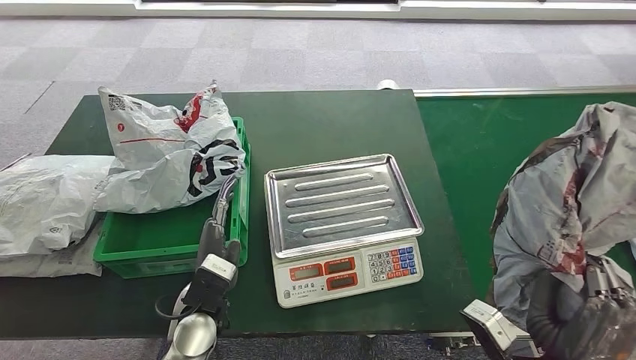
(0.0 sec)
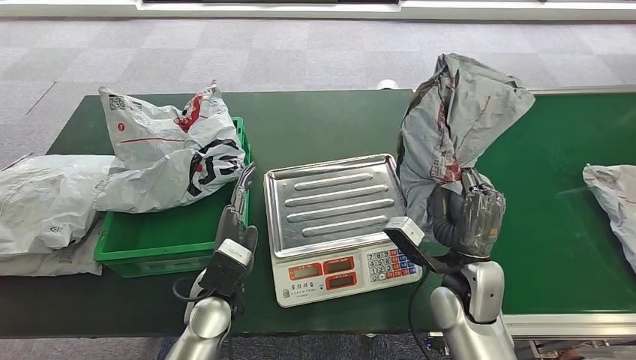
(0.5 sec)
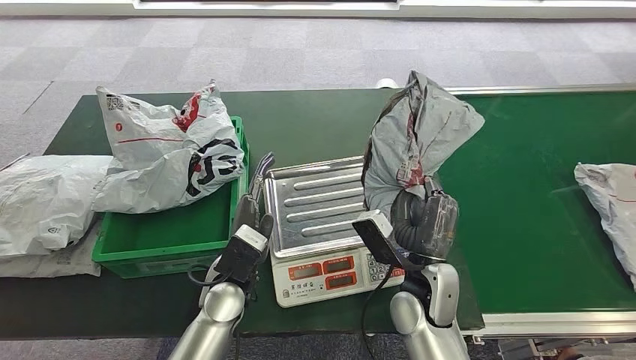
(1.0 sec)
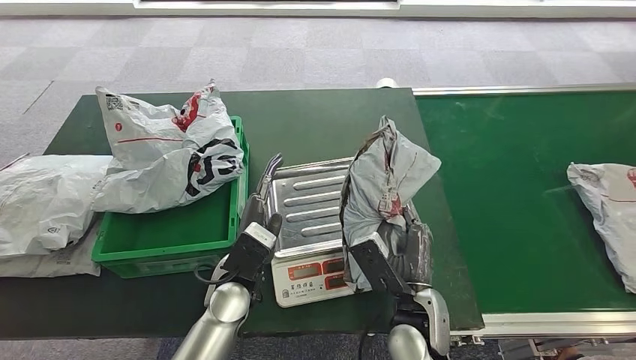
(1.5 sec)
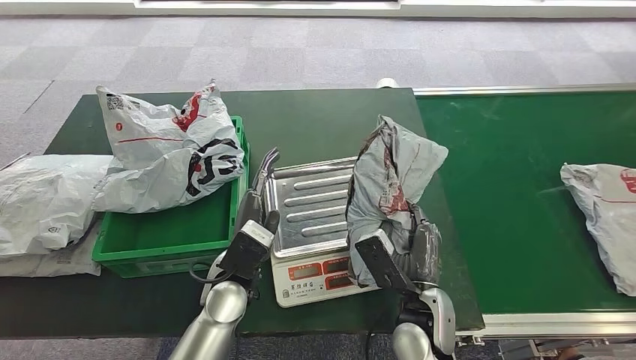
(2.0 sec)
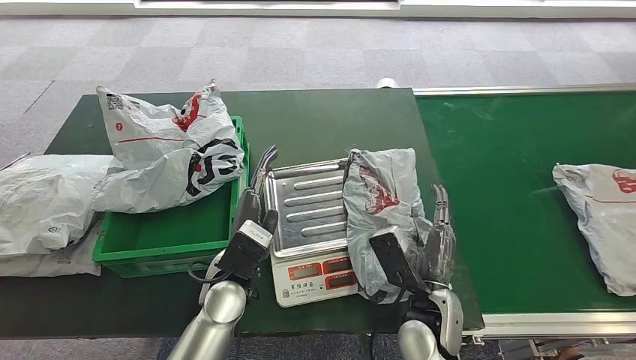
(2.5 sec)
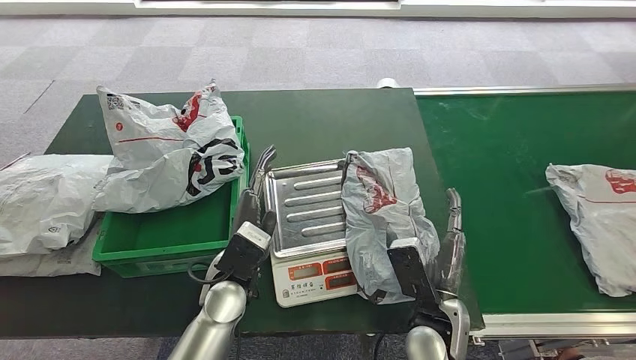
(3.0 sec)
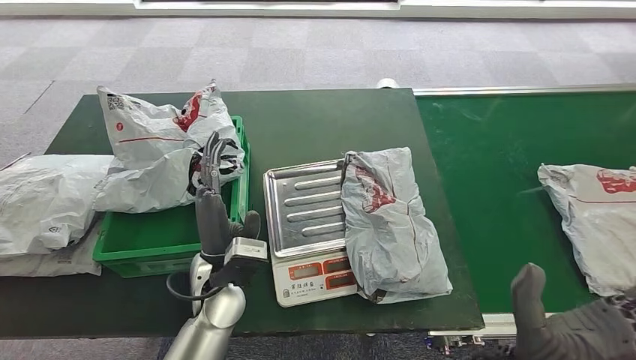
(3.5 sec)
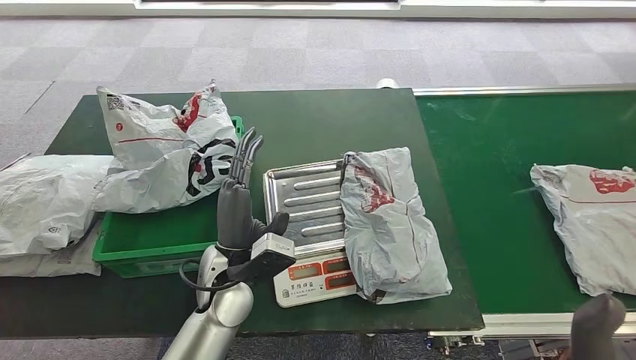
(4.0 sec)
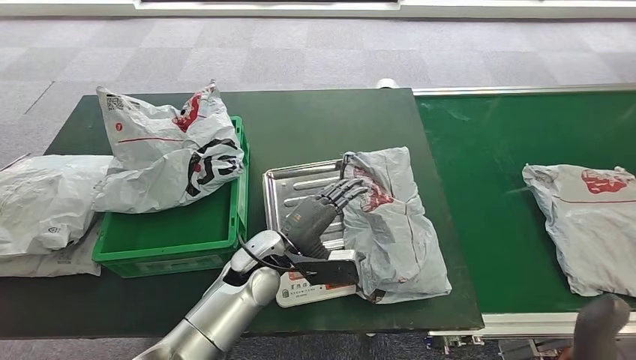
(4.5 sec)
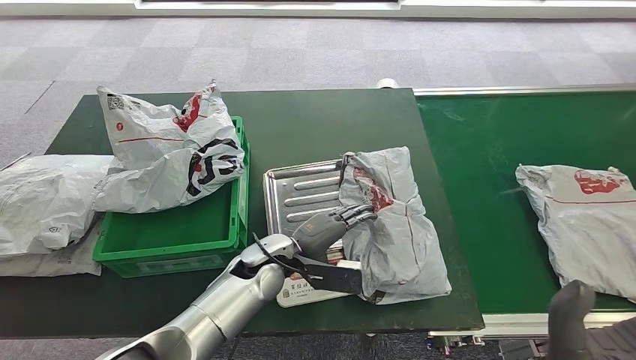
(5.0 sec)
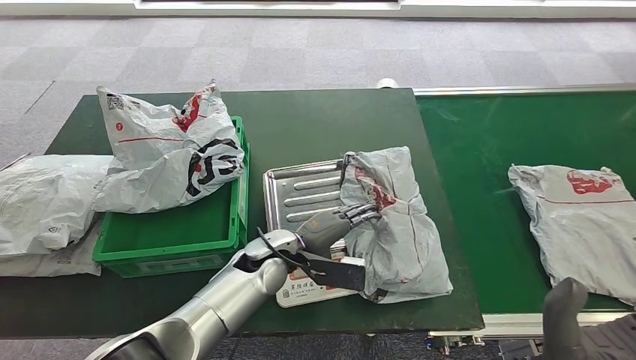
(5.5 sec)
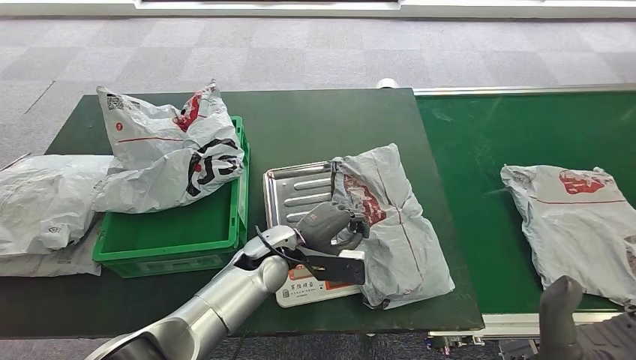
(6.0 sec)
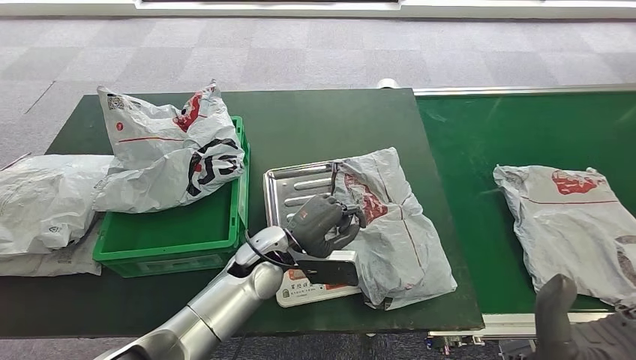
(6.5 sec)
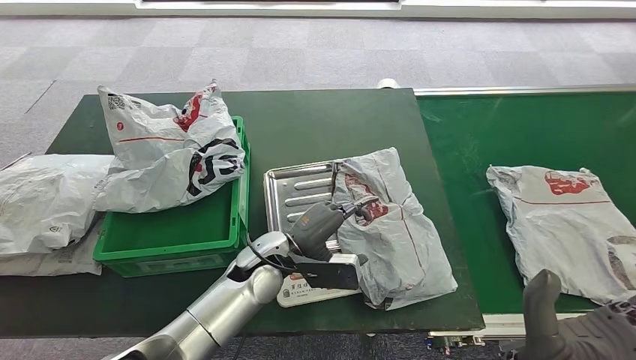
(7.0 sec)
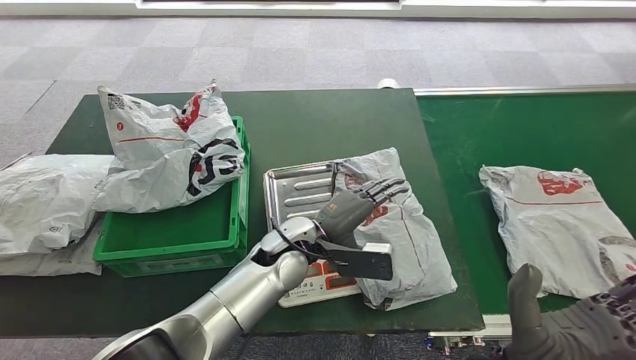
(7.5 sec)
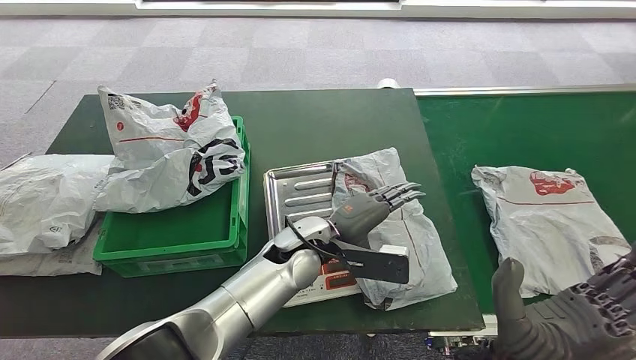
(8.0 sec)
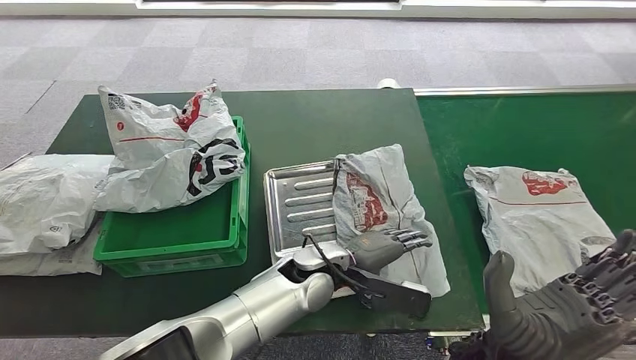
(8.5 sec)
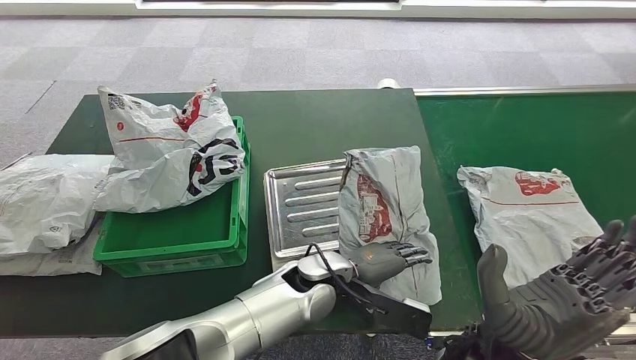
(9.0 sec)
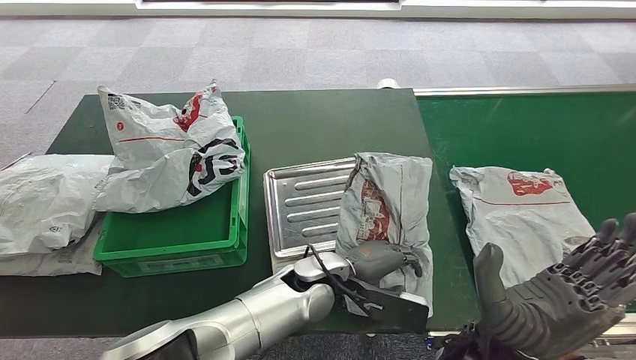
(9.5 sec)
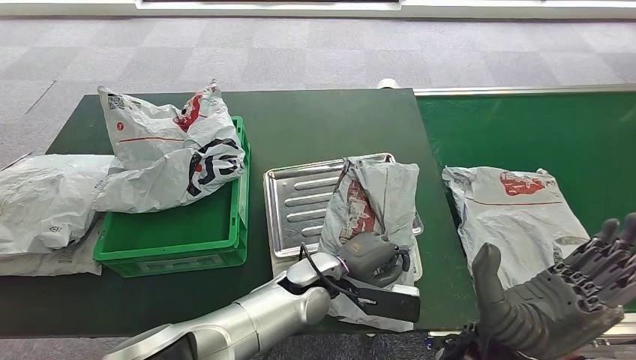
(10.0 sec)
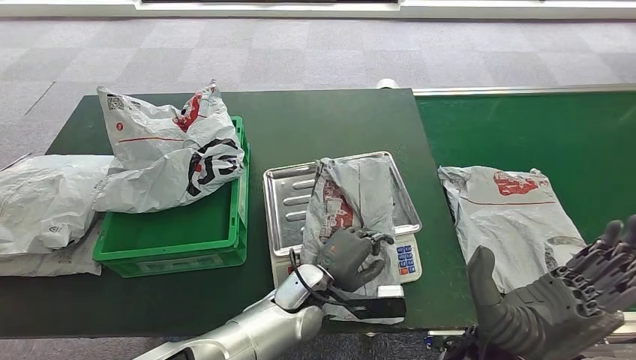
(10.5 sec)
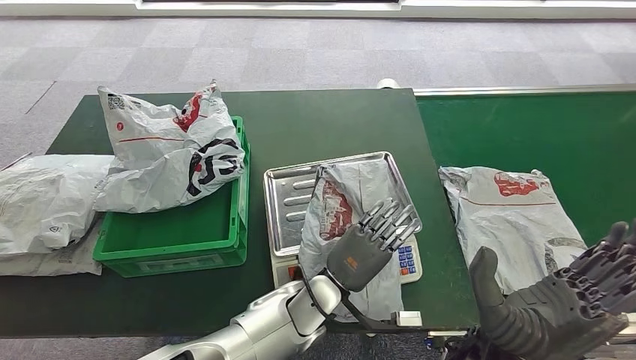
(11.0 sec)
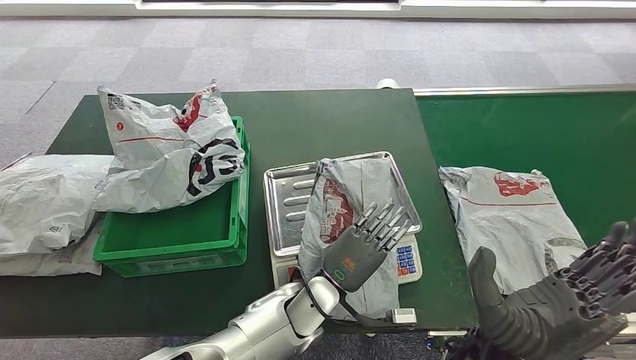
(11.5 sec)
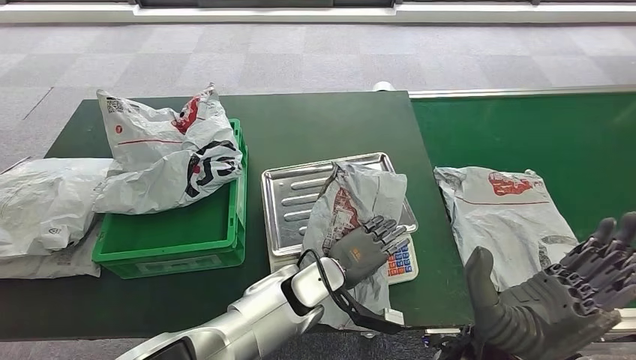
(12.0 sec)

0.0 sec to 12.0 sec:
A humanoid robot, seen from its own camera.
Step, 0.0 sec to 4.0 sec: Place the parcel onto the inbound machine.
2.0 sec to 4.0 sec: The right hand is displaced upward, backward and to the right by roughly 20 cm.
4.0 sec to 6.0 sec: The left hand heads forward, covering about 5 cm.
6.0 sec to 8.0 sec: The left hand is displaced to the right by some 5 cm.
8.0 sec to 10.0 sec: The left hand goes some 5 cm downward.

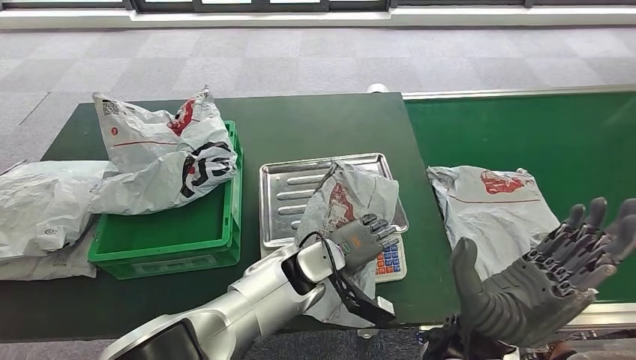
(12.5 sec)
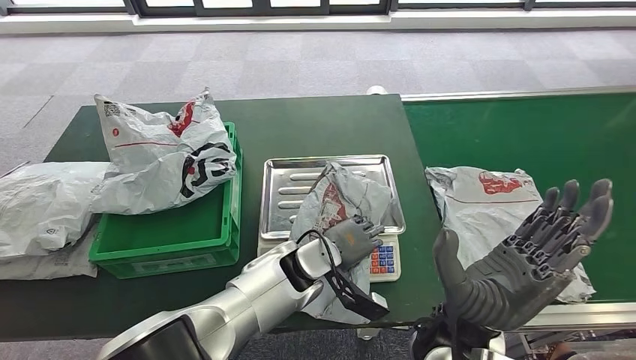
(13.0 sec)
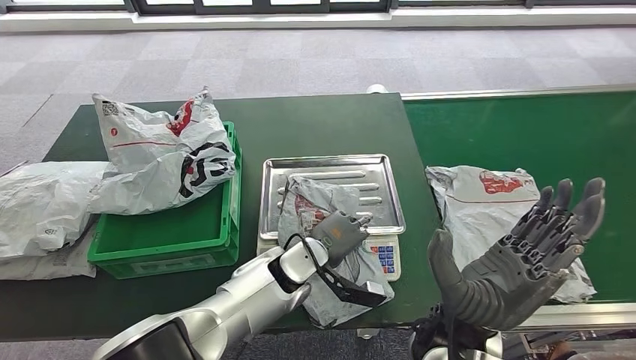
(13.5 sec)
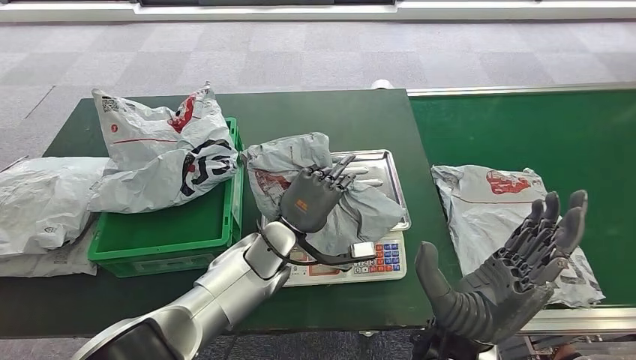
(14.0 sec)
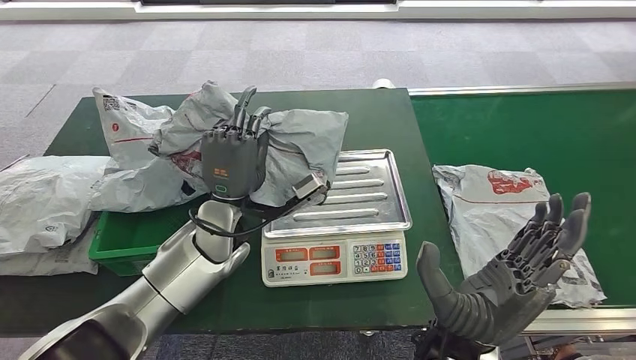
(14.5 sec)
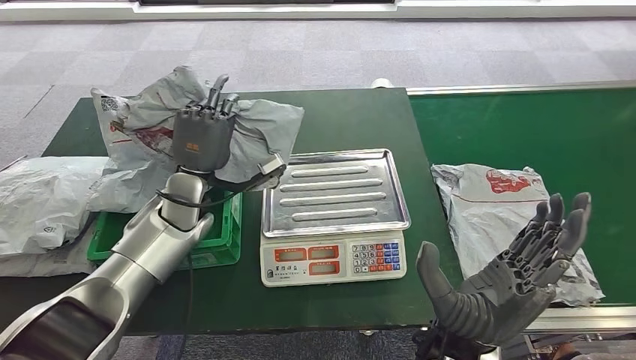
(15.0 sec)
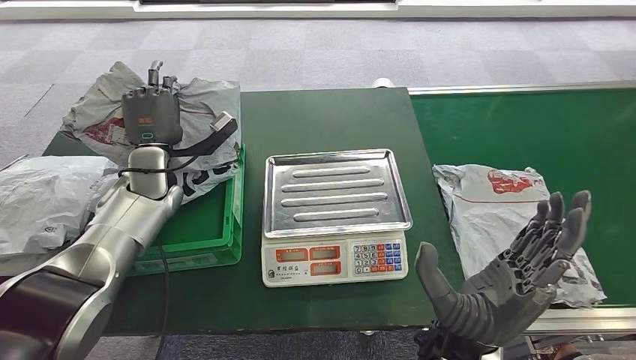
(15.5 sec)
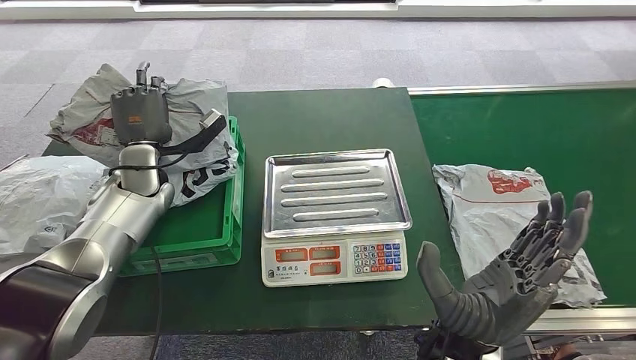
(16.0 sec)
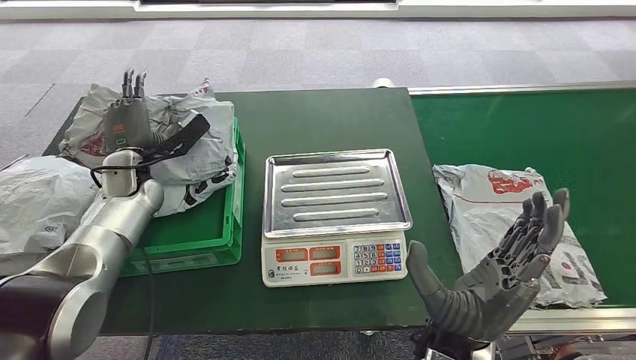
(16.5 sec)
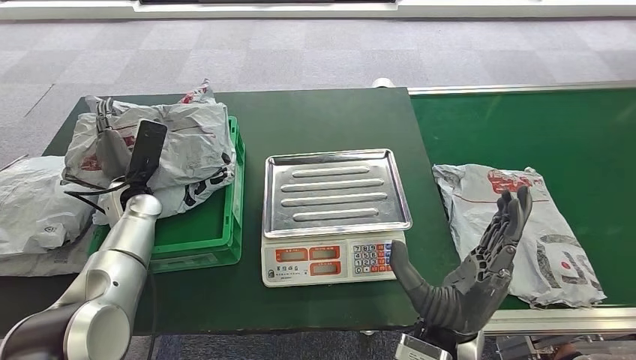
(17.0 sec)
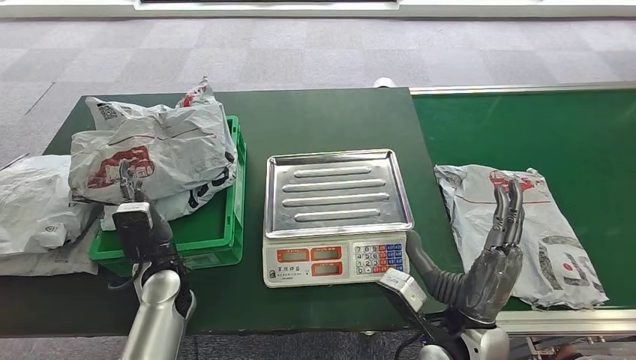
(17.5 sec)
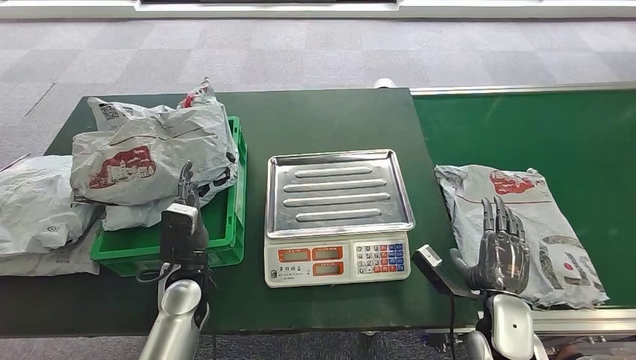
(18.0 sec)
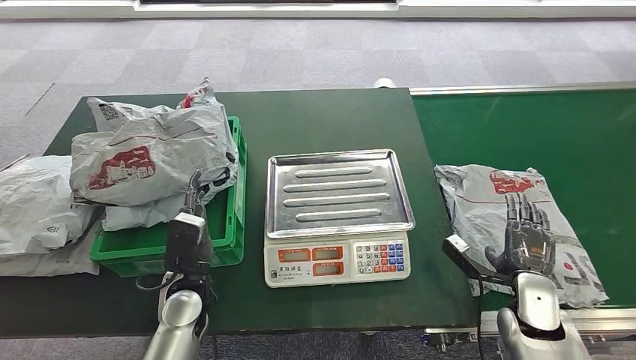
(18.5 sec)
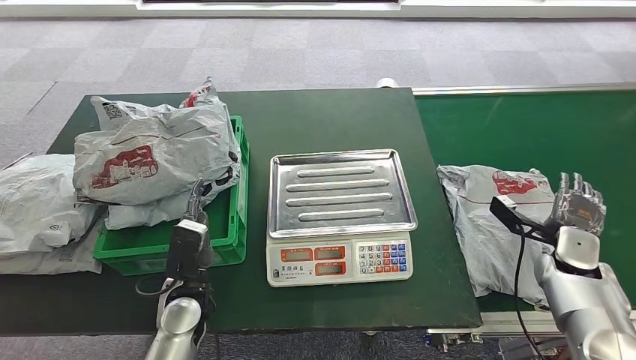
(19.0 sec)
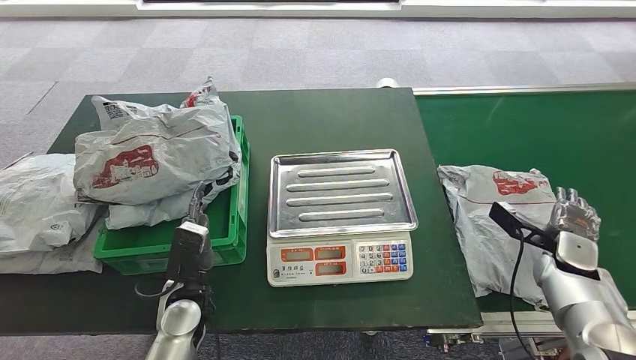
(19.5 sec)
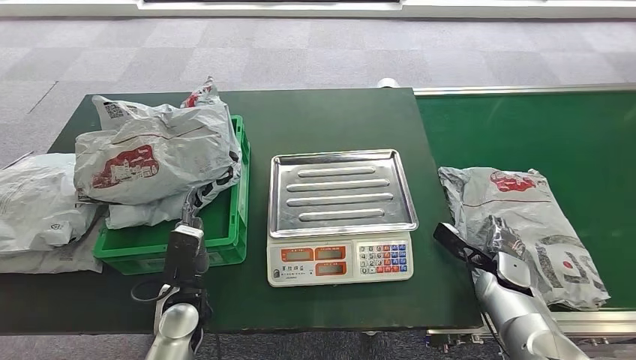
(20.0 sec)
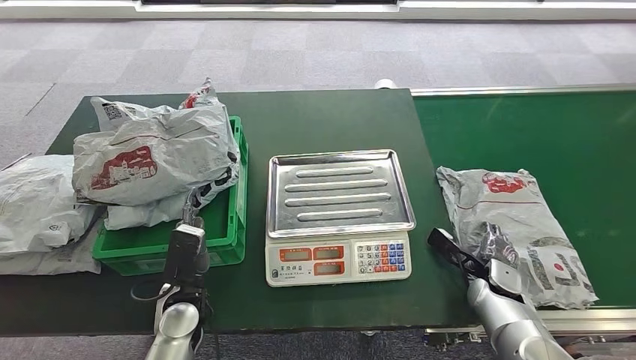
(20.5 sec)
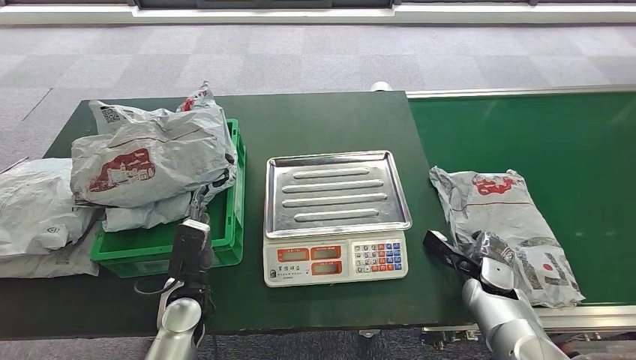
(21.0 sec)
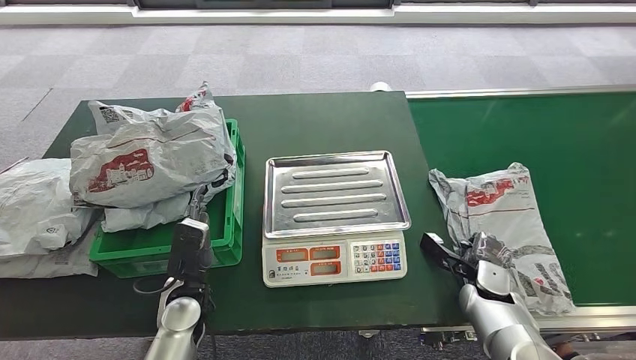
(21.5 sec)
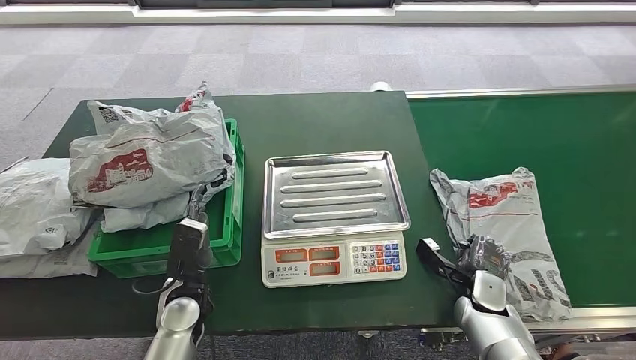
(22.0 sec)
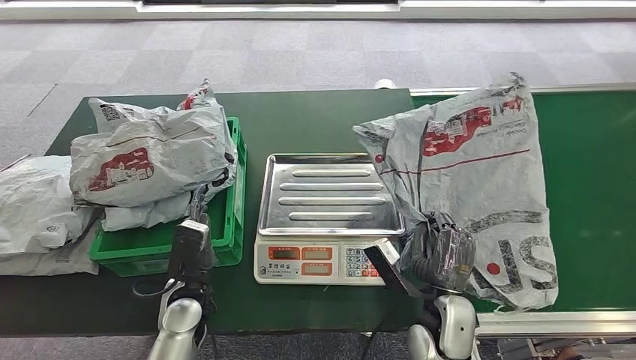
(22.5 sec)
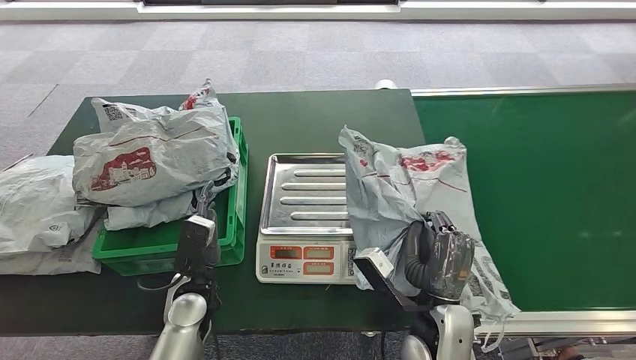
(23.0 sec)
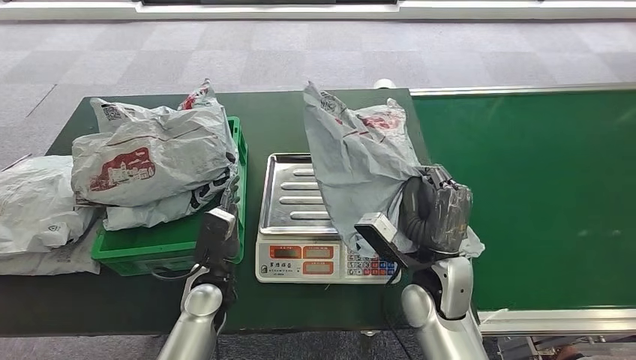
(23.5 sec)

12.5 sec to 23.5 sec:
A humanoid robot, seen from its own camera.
Step, 12.5 sec to 14.5 sec: Pick up the parcel from the inbound machine.
Step, 15.5 sec to 18.0 sec: Place the parcel into the delivery box.
Step, 21.0 sec to 23.0 sec: Pick up the parcel from the conveyor belt.
18.0 sec to 20.0 sec: The right hand shifts roughly 15 cm forward, to the right and downward.
